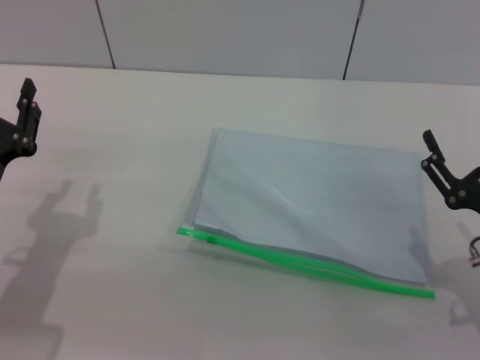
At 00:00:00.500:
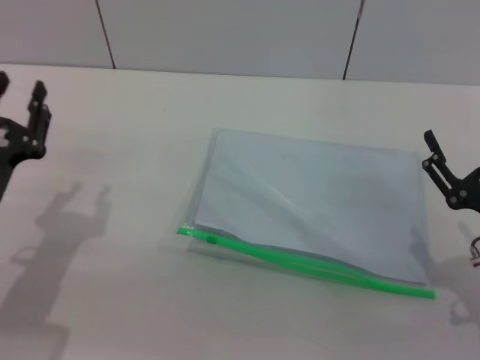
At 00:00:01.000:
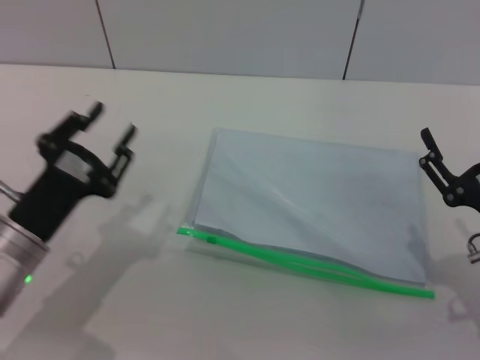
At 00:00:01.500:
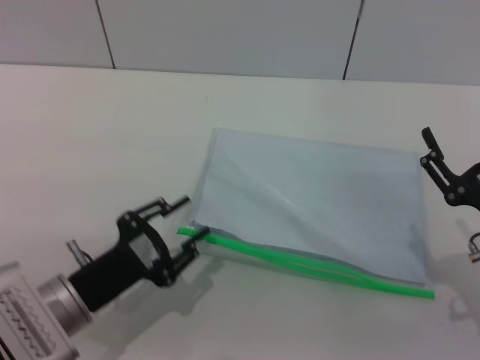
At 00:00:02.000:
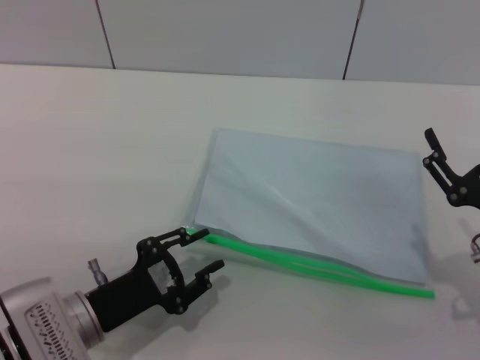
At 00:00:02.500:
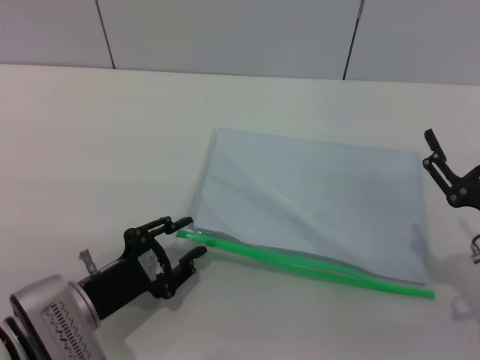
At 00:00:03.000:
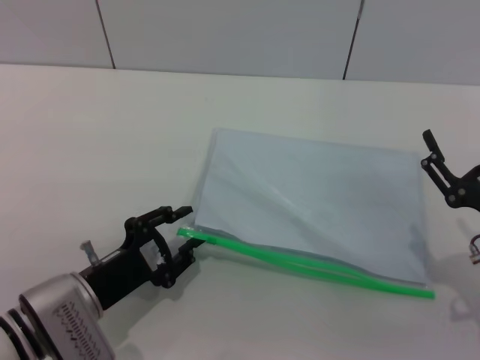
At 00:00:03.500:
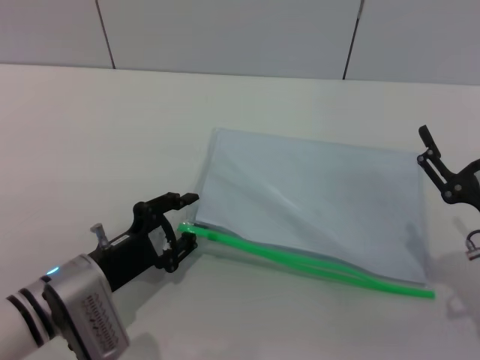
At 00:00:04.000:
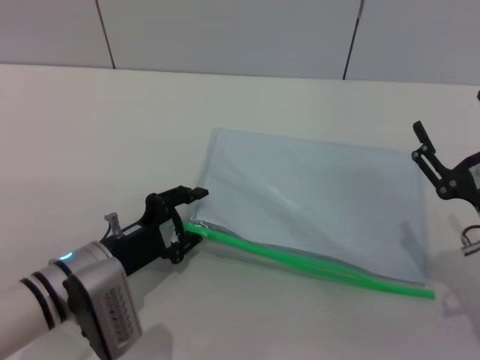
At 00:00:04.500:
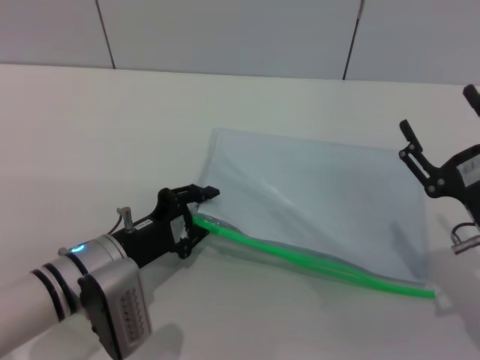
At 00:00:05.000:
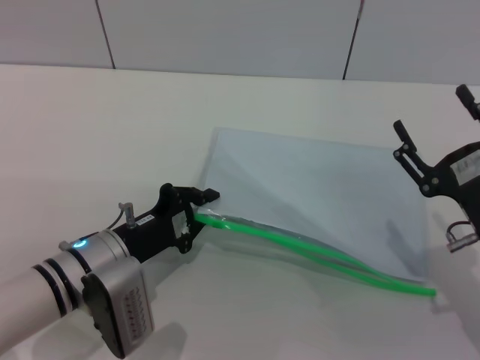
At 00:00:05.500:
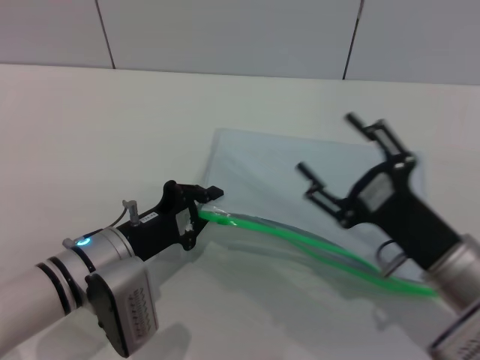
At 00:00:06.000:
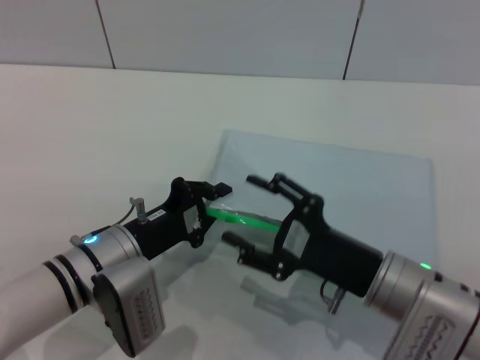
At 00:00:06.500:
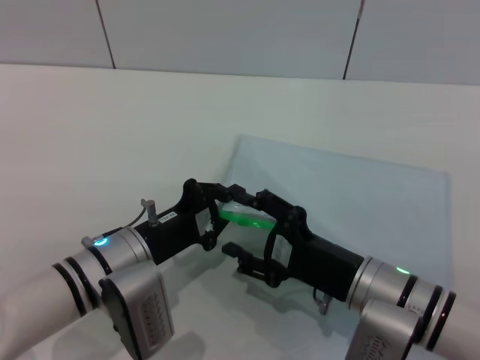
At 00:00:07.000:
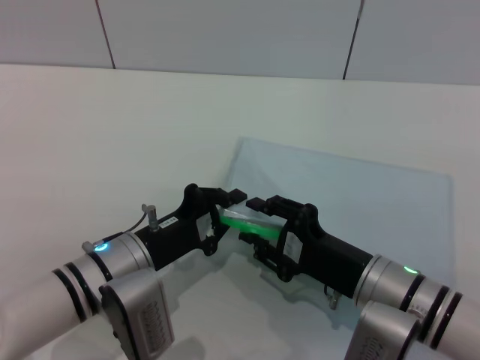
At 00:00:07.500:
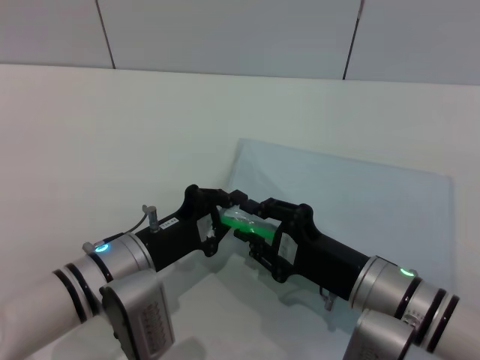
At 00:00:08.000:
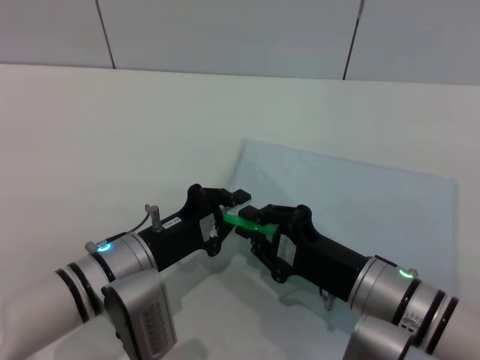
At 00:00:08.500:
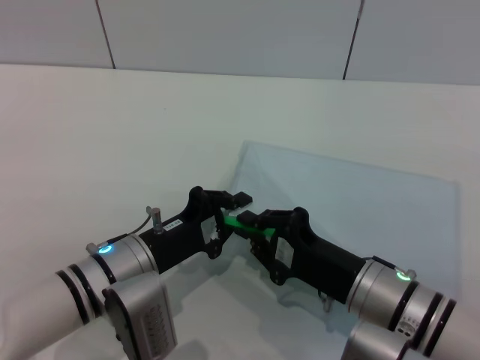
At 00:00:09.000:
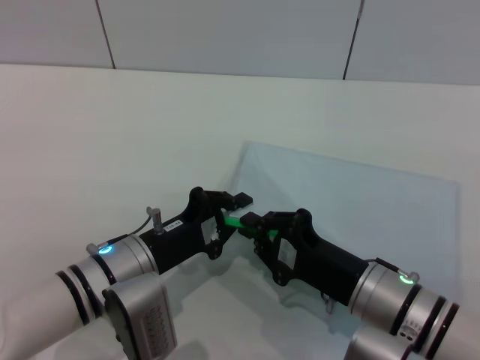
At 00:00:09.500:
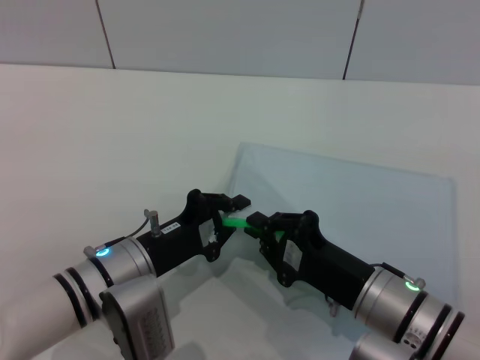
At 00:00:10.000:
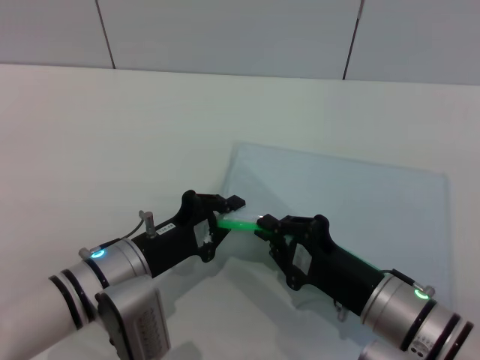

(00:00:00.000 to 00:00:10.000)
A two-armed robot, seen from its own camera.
Step, 00:00:00.000 - 00:00:05.000: Pick up the transparent plastic bag with the left gripper.
00:00:00.000 - 00:00:02.000: The left gripper heads to the right and downward, covering about 10 cm.
00:00:02.000 - 00:00:04.000: The left gripper heads forward, covering about 5 cm.
00:00:04.000 - 00:00:06.000: The right gripper moves to the left, roughly 10 cm, while the left gripper closes.
00:00:06.000 - 00:00:08.000: The right gripper closes up.
00:00:08.000 - 00:00:10.000: The grippers stay close to where they were, moving slightly.

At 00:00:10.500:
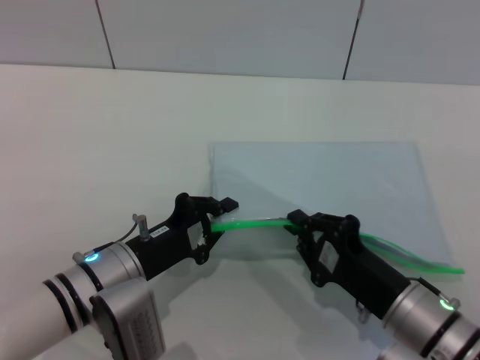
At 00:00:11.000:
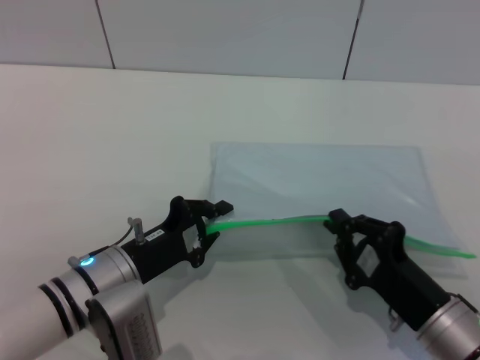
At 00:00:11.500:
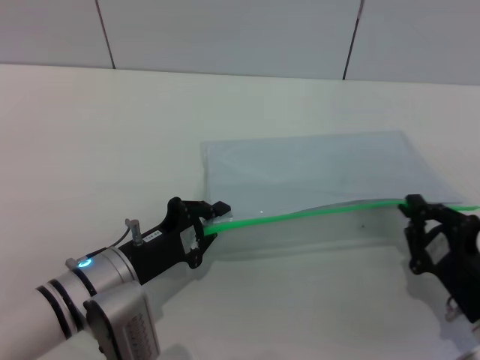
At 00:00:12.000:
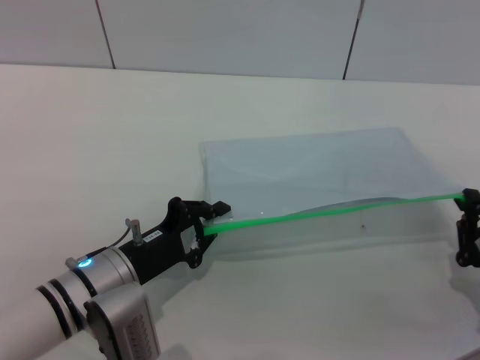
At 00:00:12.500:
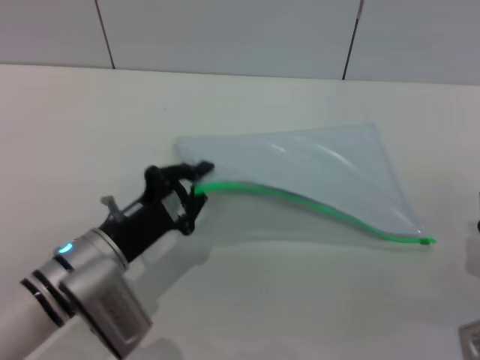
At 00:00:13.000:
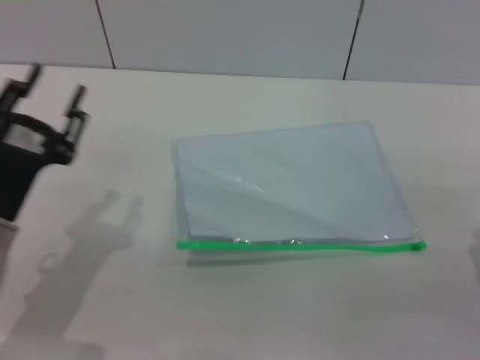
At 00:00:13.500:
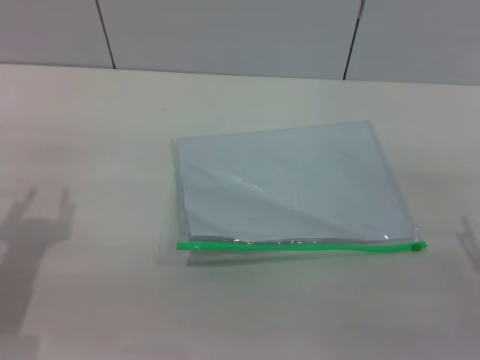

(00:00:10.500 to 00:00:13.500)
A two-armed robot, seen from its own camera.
Step, 00:00:10.500 - 00:00:12.500: Pulling up the zipper on the transparent plastic bag with the right gripper to close it.
00:00:10.500 - 00:00:12.000: The right gripper is displaced to the right by about 10 cm.
00:00:12.000 - 00:00:13.500: The right gripper changes place by approximately 5 cm, and opens up; the left gripper heads to the left and upward, covering roughly 15 cm, and opens.
